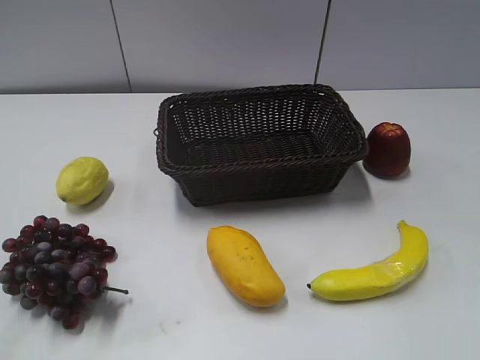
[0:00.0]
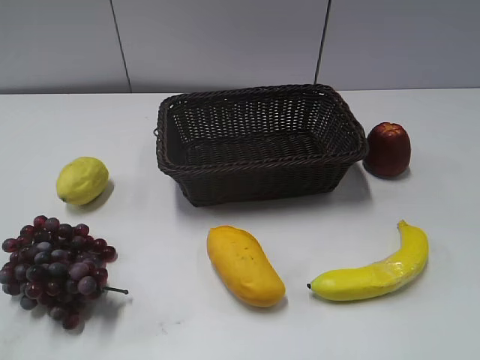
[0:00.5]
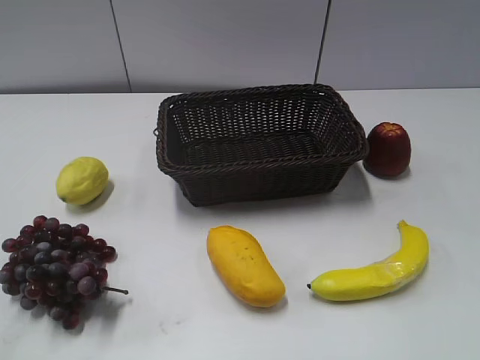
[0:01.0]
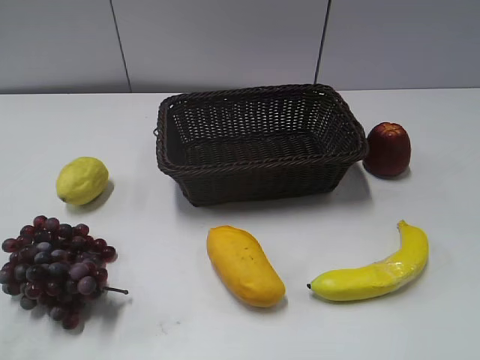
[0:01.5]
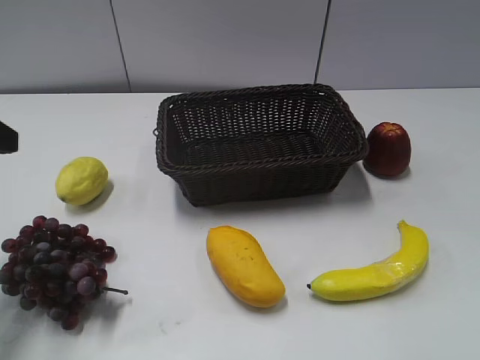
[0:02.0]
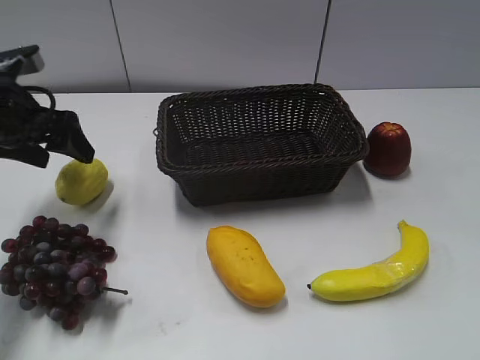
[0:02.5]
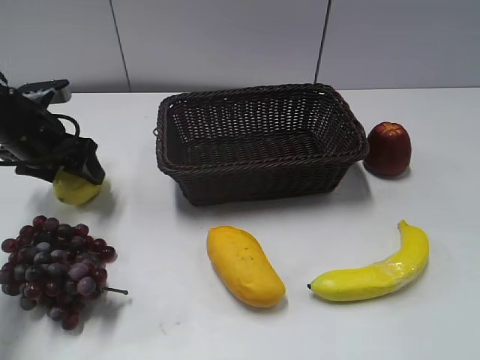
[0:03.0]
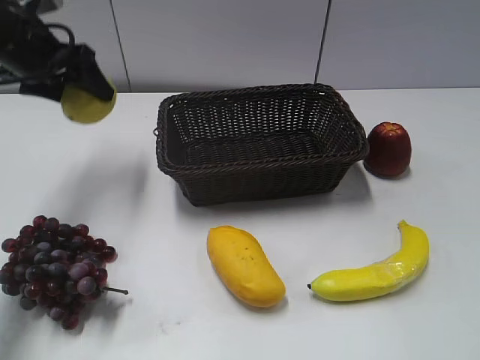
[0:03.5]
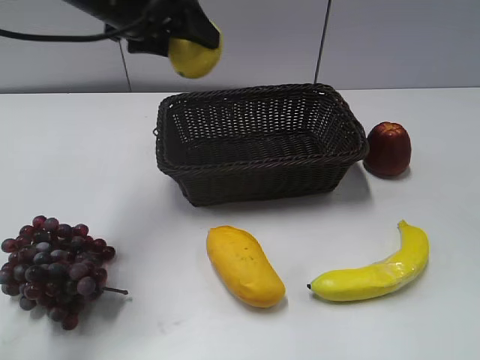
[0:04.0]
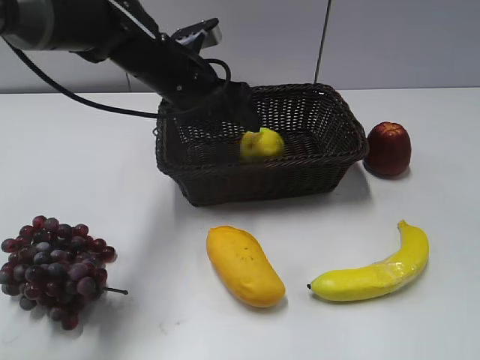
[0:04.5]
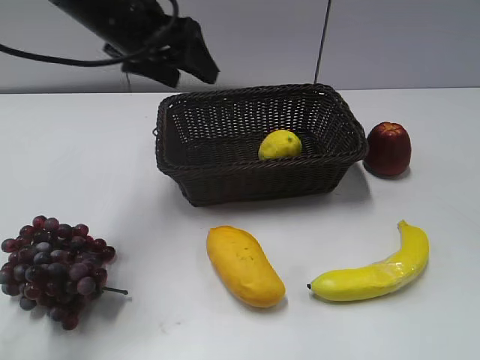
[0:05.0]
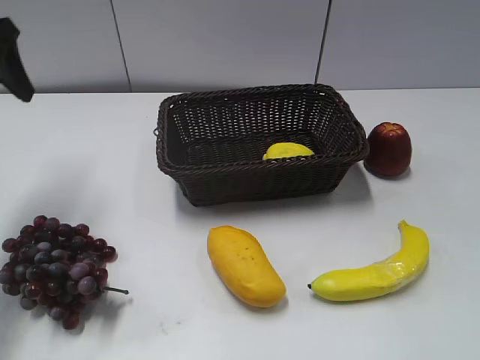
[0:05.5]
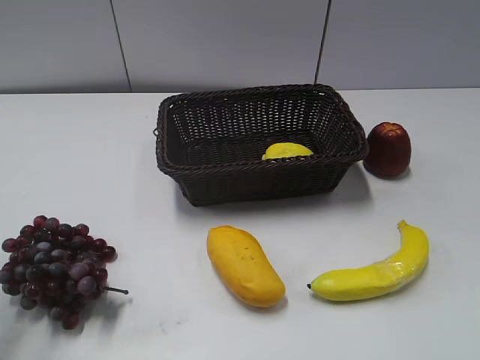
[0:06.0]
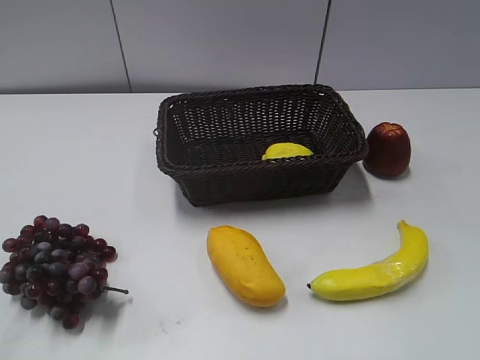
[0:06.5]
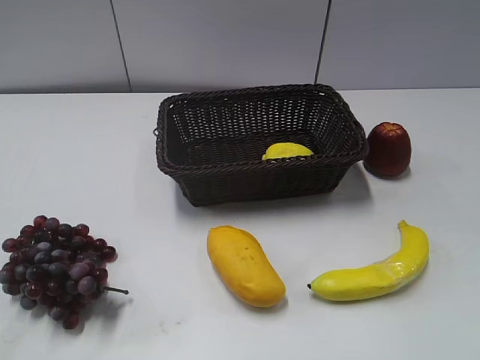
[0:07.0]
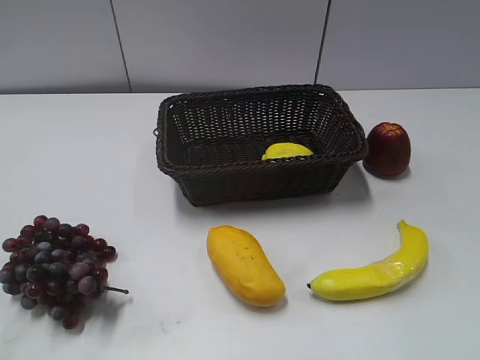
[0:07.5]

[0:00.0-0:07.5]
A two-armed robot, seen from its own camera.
Step, 0:02.0 to 0:03.0: Grasp the lemon with left gripper.
Step, 0:03.5 to 0:04.5: Place the lemon in the basket with left gripper.
0:02.0 to 0:04.0: The left gripper moves to the right and forward, approximately 25 cm, and closes its fingers.
0:04.0 to 0:05.5: The left gripper heads to the left, covering some 20 cm, and opens and closes again.
0:05.5 to 0:07.5: The left gripper moves backward, roughly 35 cm.
